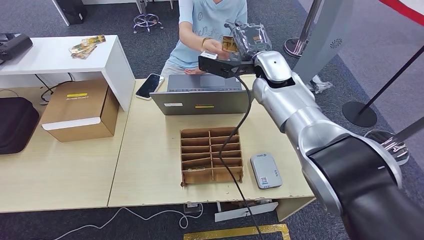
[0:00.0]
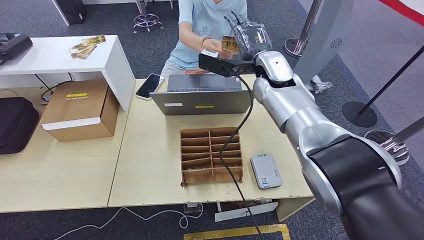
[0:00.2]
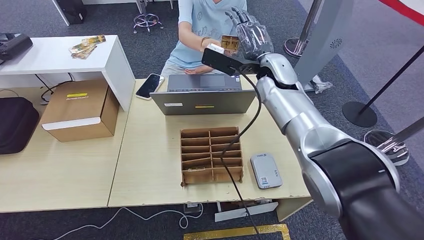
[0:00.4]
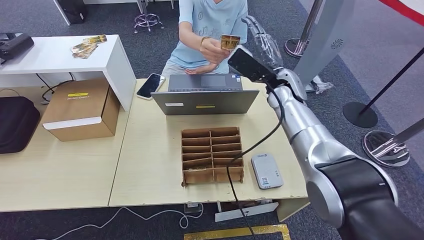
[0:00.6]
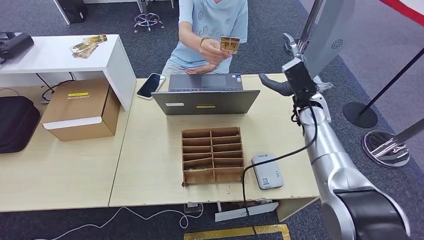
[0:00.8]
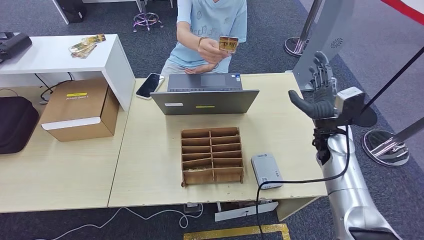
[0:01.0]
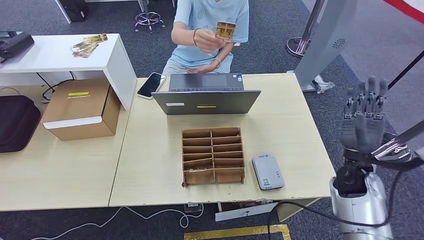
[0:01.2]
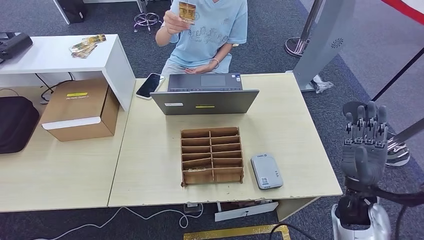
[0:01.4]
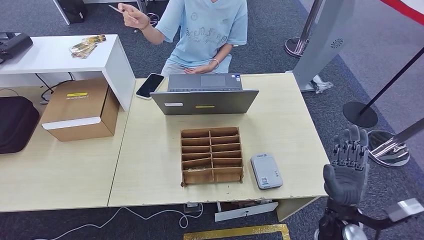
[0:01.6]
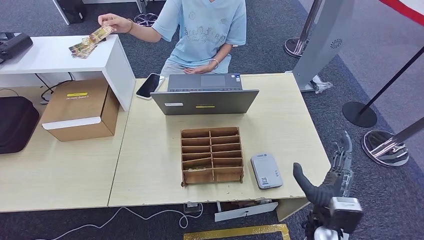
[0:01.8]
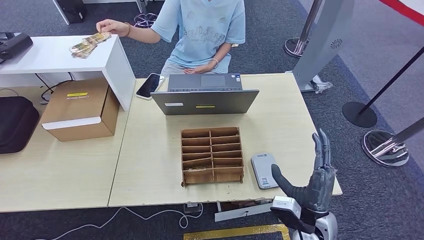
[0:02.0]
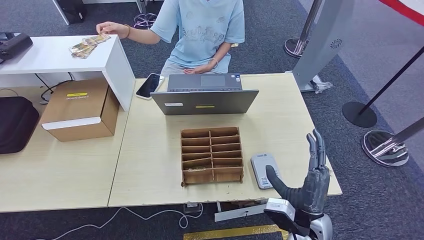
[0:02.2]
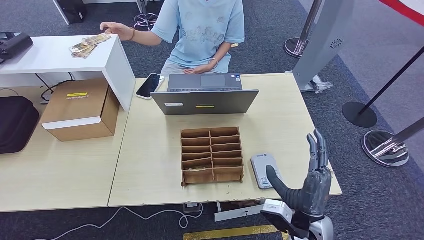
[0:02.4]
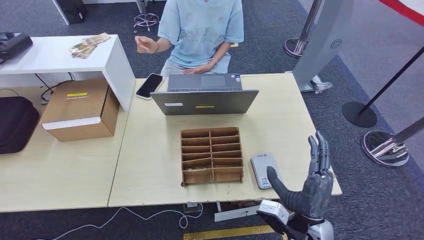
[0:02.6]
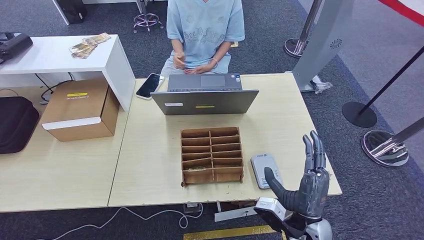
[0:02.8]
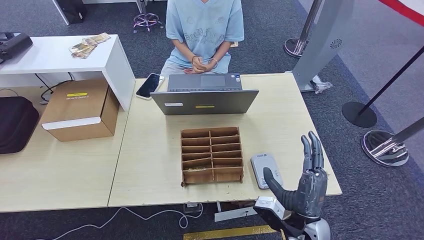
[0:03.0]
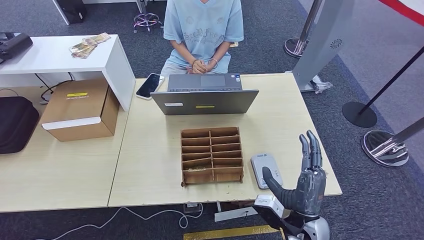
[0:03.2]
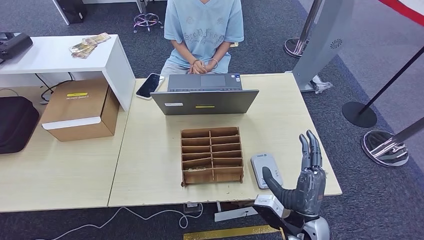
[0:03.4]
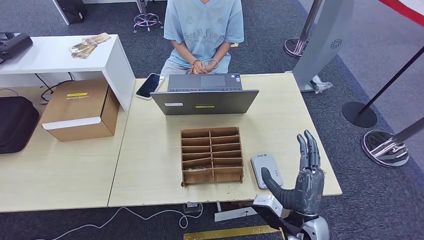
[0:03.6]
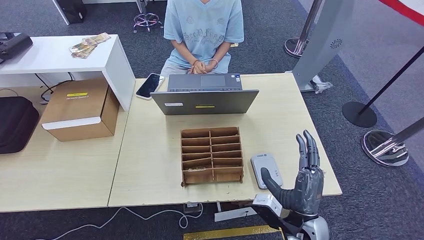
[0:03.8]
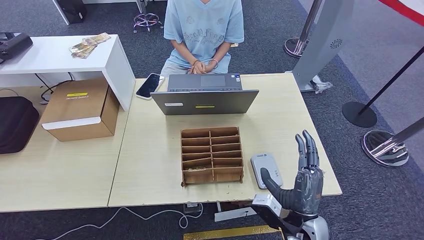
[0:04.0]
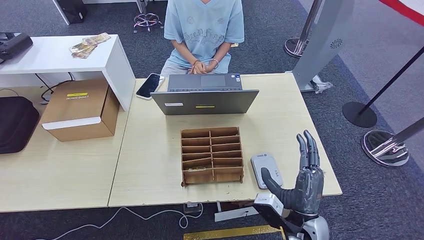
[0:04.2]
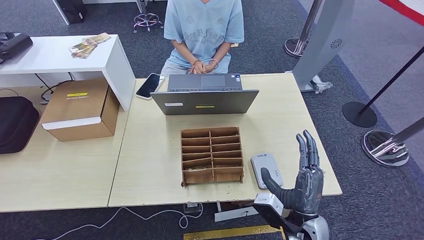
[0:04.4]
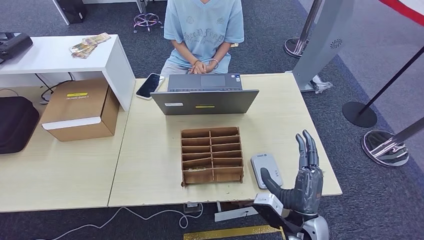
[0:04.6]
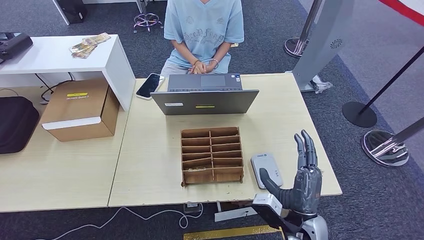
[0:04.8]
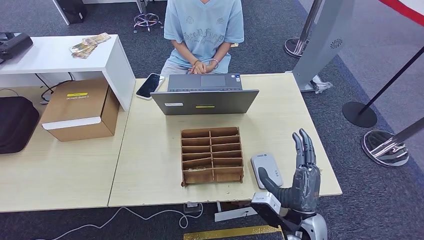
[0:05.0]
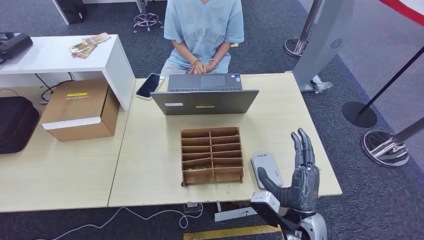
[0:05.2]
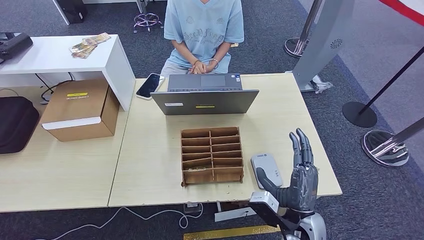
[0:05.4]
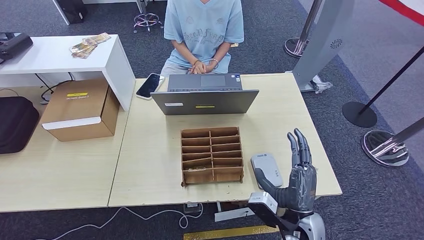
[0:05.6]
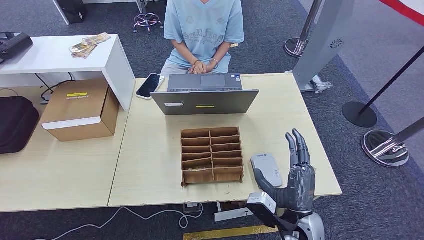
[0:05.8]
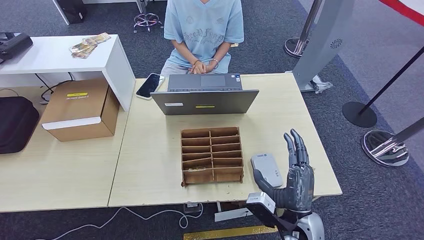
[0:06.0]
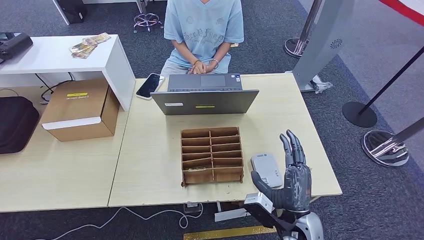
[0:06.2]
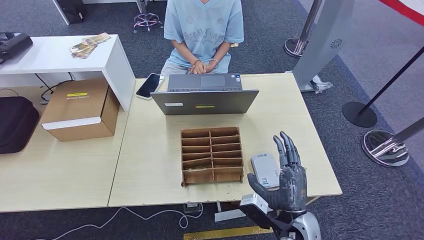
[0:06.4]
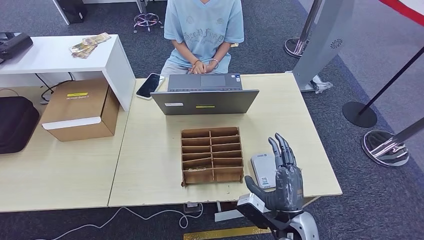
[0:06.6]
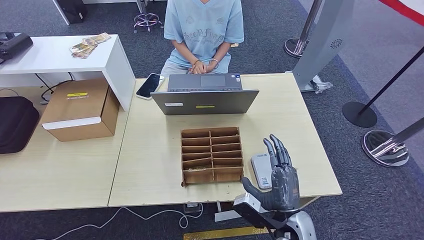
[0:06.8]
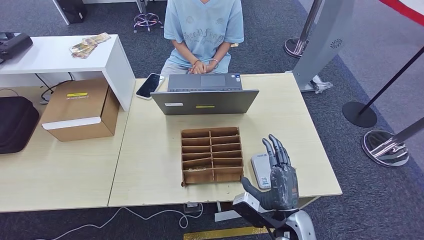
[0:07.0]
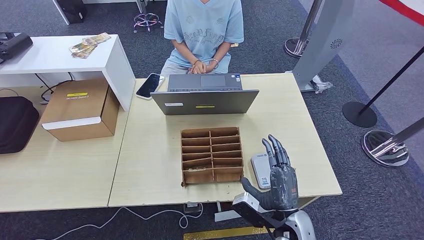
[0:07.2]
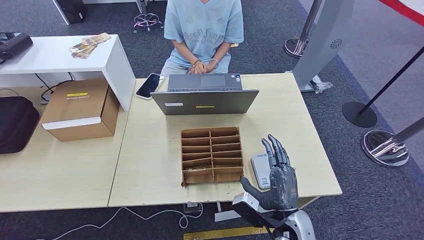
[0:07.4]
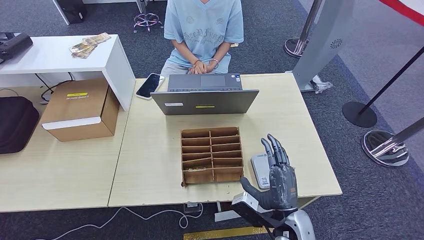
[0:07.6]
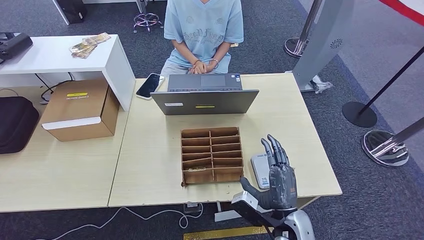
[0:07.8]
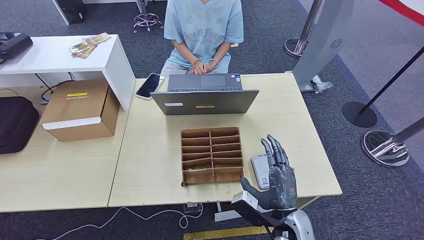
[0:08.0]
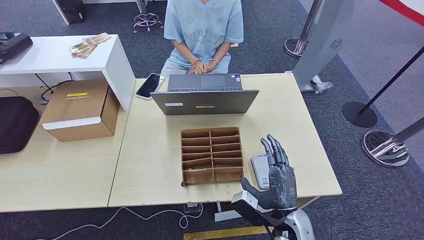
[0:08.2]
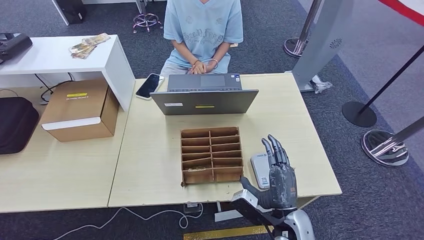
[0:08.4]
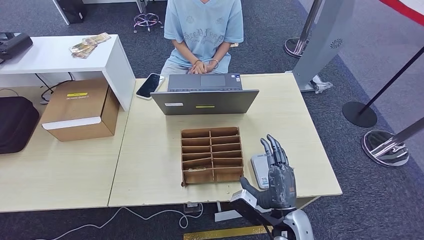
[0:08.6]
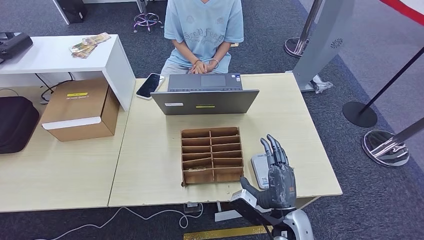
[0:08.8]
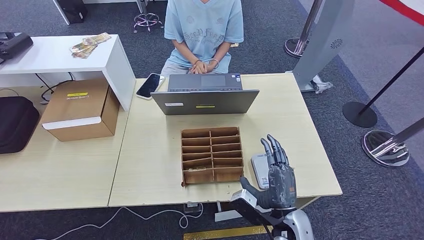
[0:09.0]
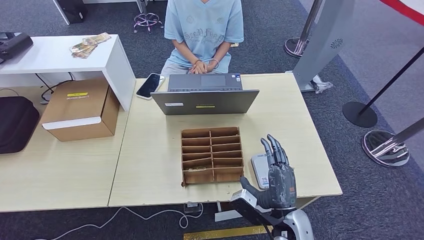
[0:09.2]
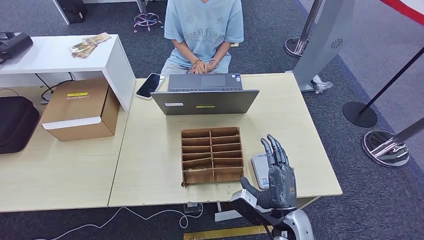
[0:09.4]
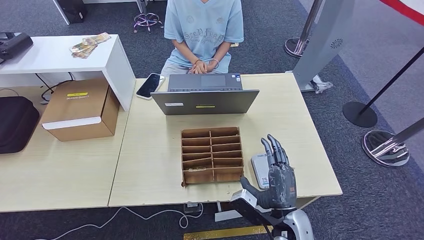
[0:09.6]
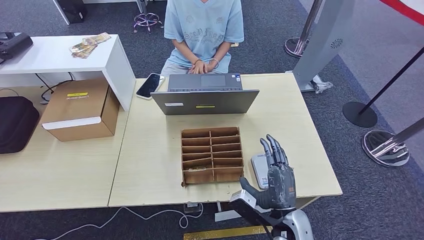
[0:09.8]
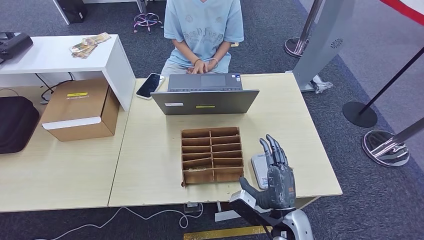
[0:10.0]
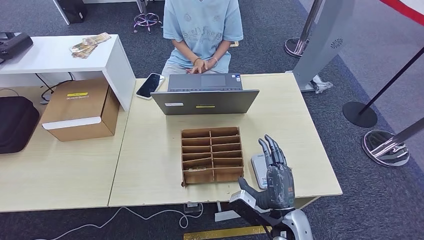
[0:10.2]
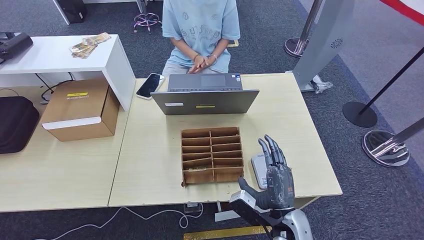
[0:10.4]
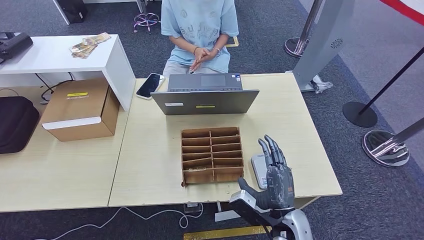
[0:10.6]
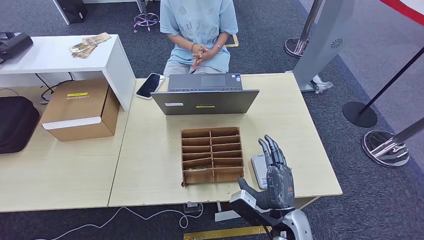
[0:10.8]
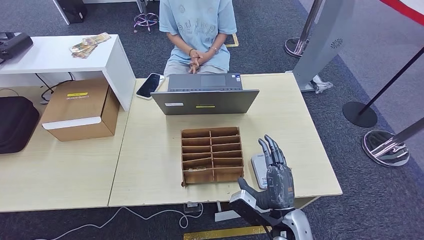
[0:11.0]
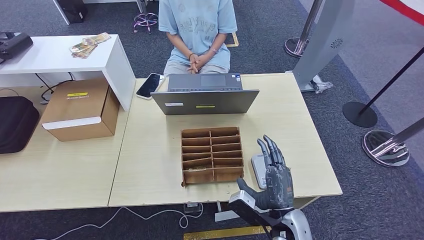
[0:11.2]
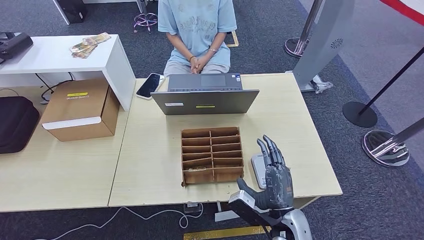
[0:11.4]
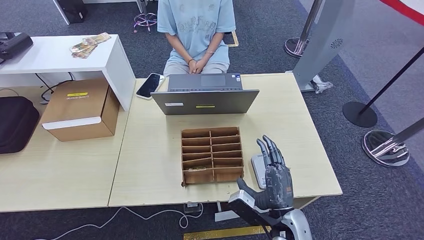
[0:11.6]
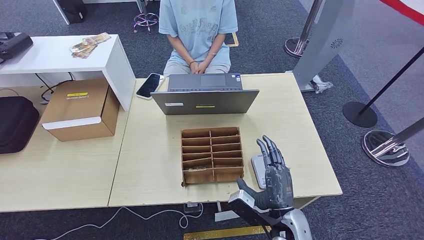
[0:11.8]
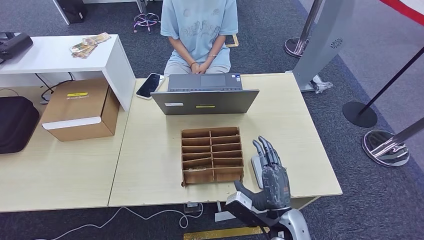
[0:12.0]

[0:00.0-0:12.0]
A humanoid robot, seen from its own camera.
0:00.0 to 0:01.6: The right hand shifts approximately 40 cm backward, downward and to the right.
0:01.6 to 0:03.0: The right hand travels to the left by some 10 cm.
0:03.0 to 0:04.4: Neither hand changes place.
0:04.4 to 0:07.6: There are only small adjustments of the hands.
0:09.0 to 0:12.0: Both hands stay about where they are.

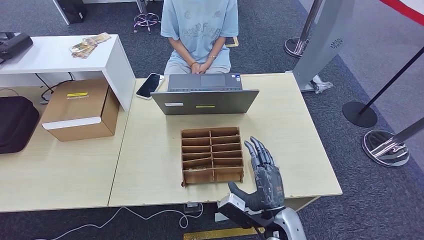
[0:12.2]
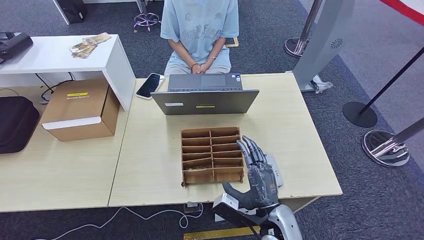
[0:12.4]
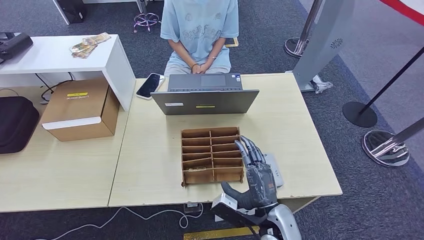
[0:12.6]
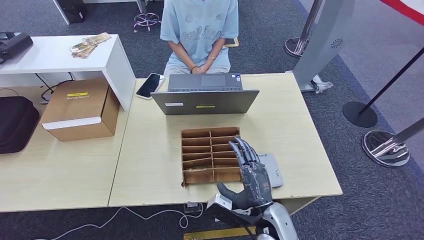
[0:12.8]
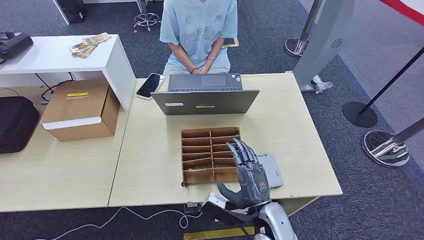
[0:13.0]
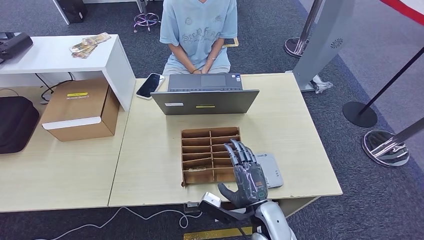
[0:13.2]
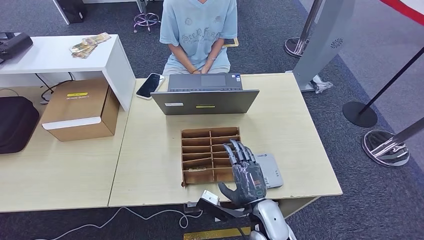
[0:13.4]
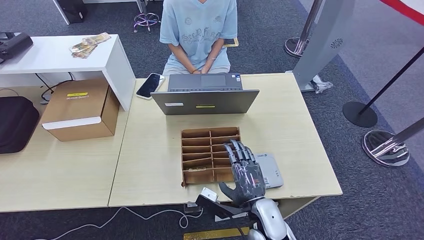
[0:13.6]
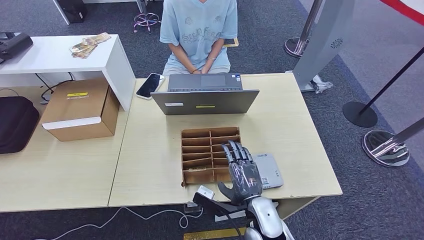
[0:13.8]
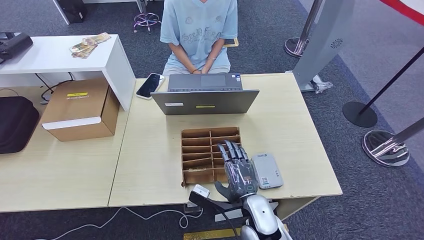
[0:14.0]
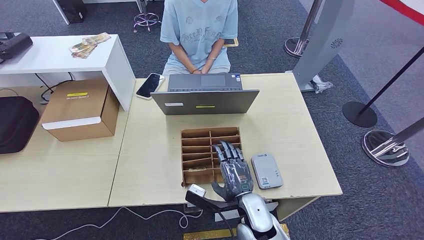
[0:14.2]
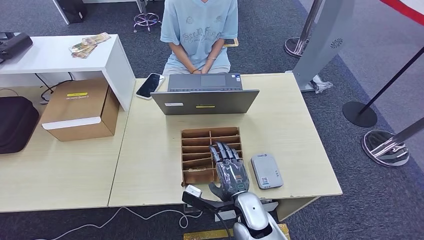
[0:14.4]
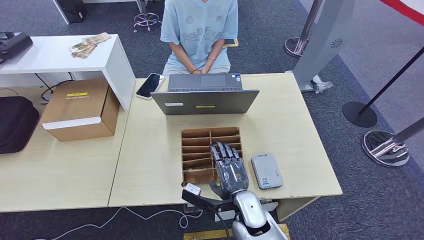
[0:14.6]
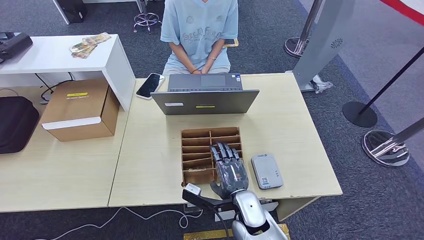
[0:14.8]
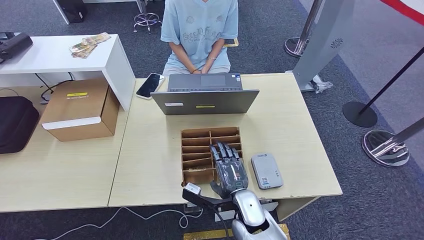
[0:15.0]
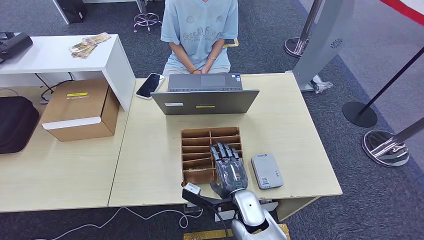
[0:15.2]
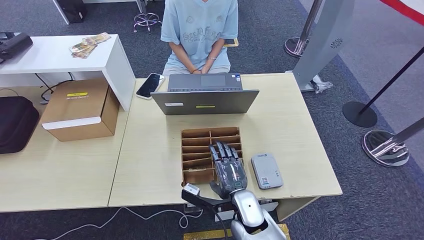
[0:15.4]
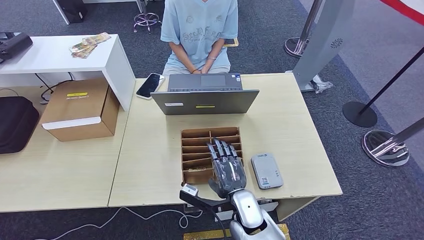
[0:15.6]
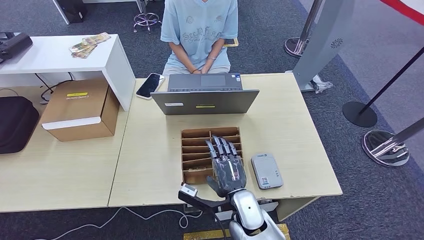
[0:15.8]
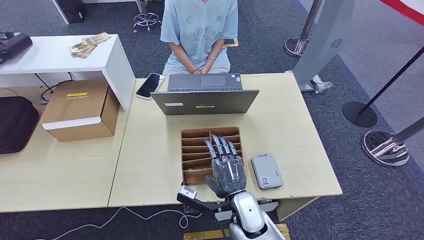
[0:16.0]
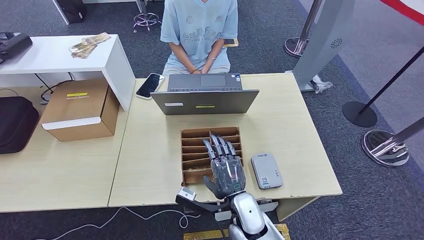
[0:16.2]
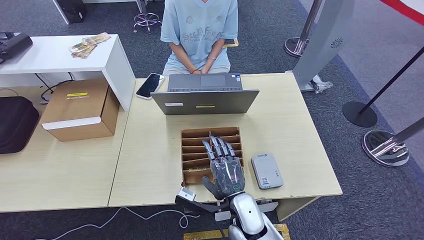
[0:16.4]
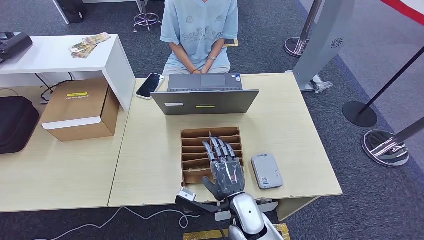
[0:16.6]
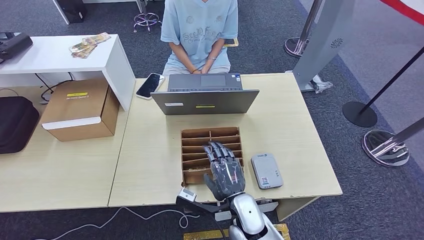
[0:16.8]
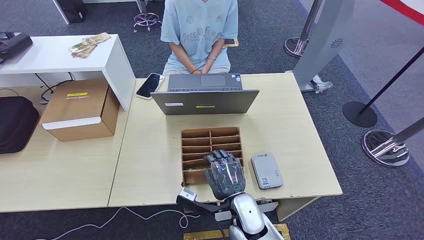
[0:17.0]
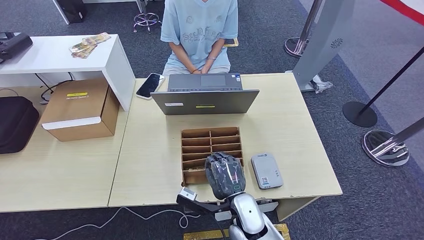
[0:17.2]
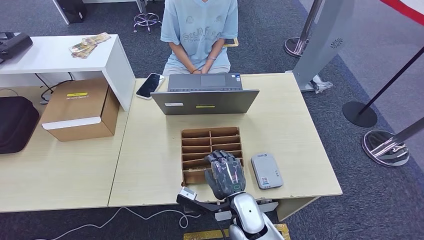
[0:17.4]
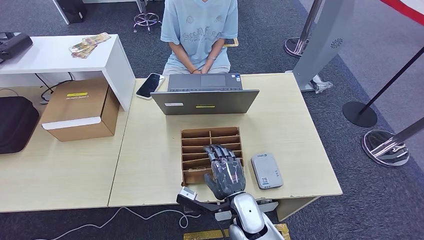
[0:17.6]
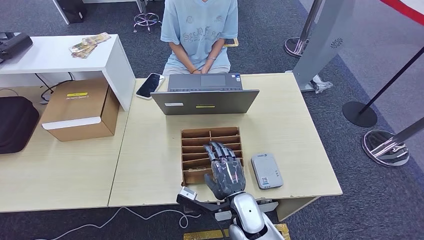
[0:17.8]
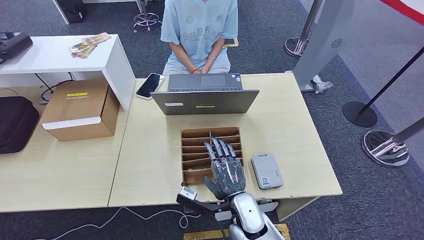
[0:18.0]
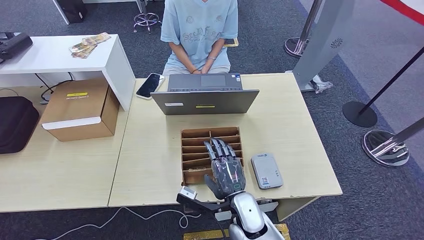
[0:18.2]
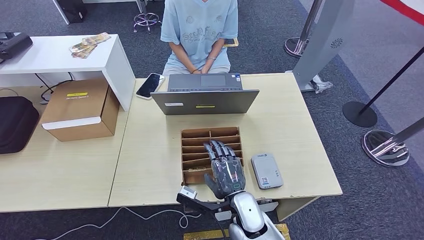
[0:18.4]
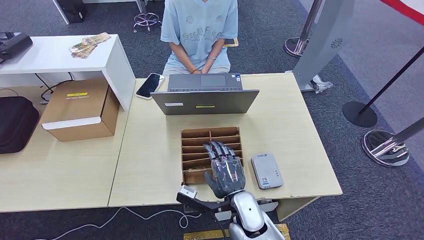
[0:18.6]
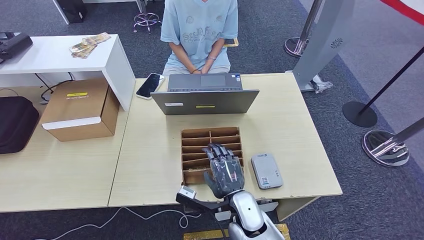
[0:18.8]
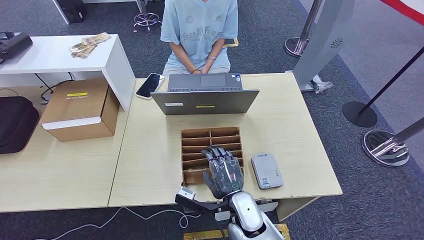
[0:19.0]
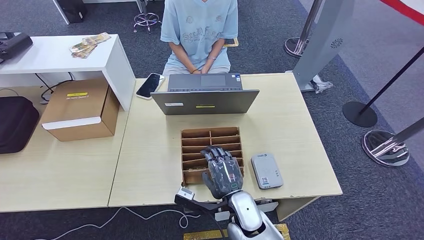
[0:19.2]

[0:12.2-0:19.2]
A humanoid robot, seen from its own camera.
0:12.2 to 0:13.6: There are only small adjustments of the hands.
0:13.6 to 0:15.0: The right hand shifts by about 5 cm.
0:15.0 to 0:16.4: The hands make only small movements.
0:16.4 to 0:19.2: Both hands stay about where they are.
